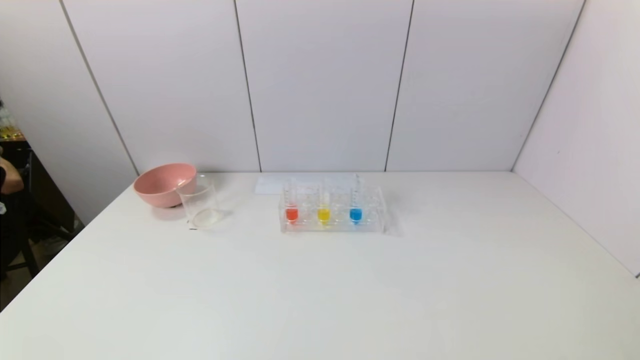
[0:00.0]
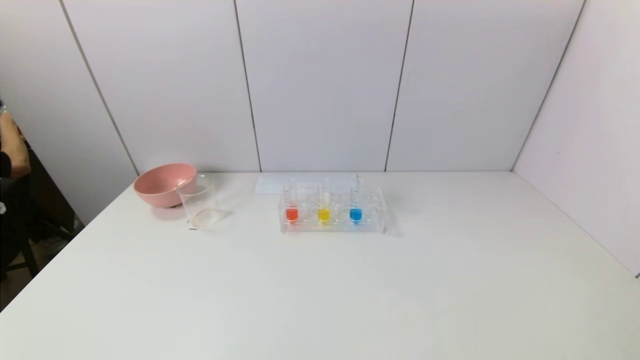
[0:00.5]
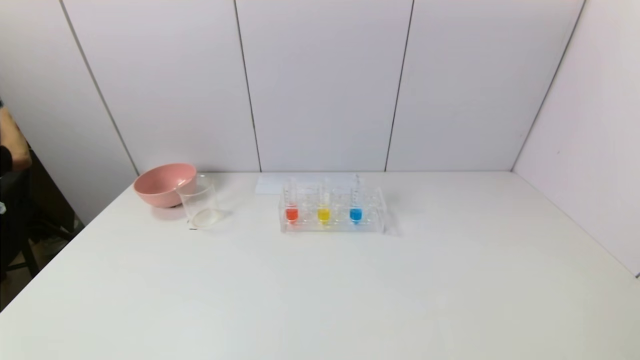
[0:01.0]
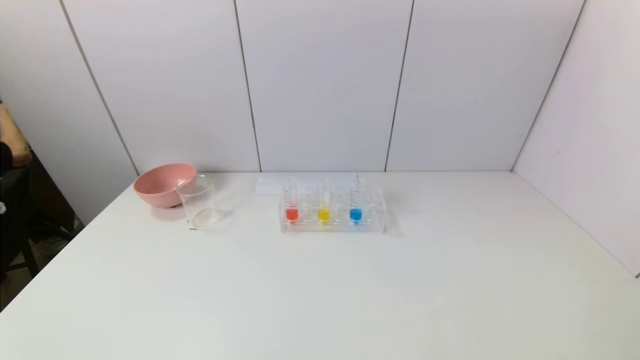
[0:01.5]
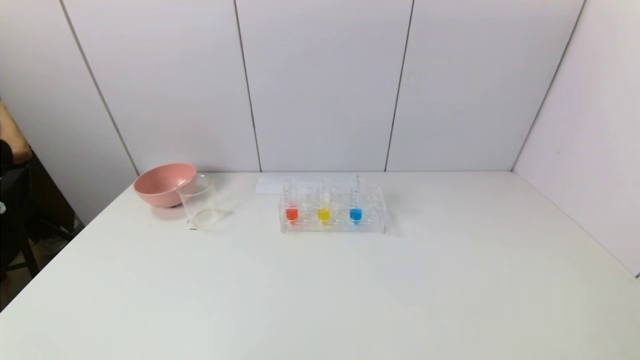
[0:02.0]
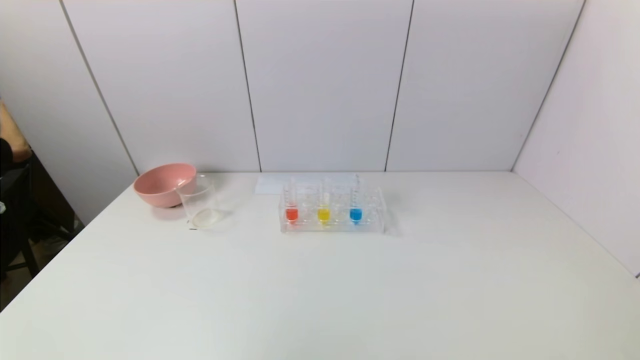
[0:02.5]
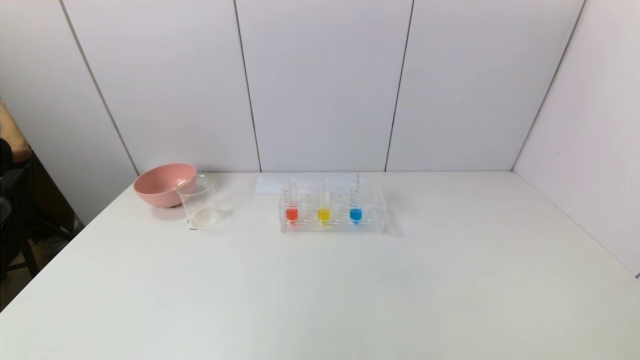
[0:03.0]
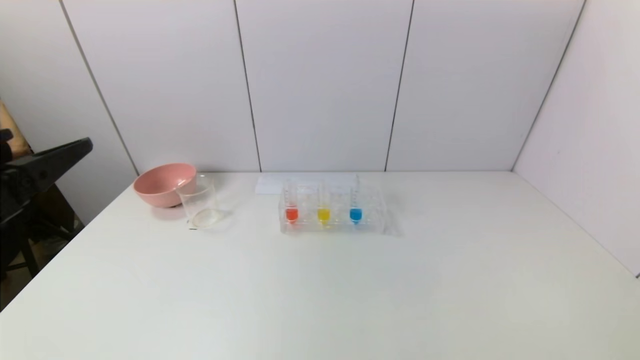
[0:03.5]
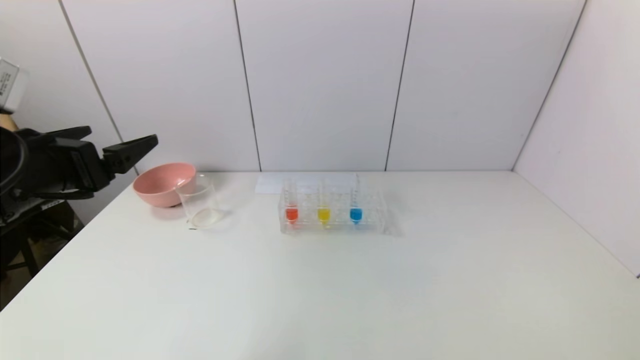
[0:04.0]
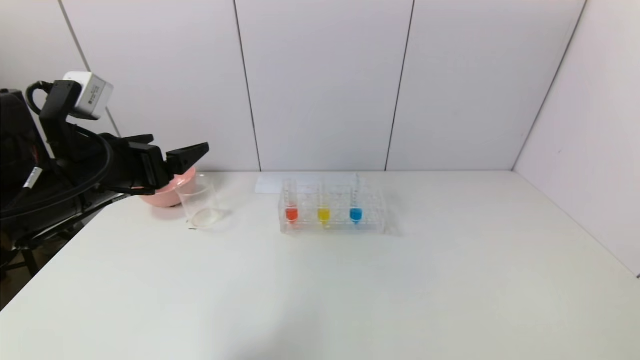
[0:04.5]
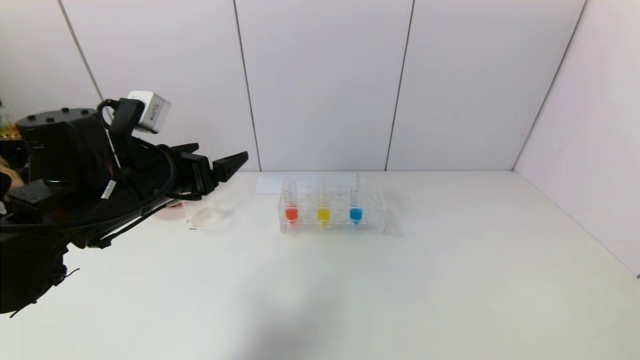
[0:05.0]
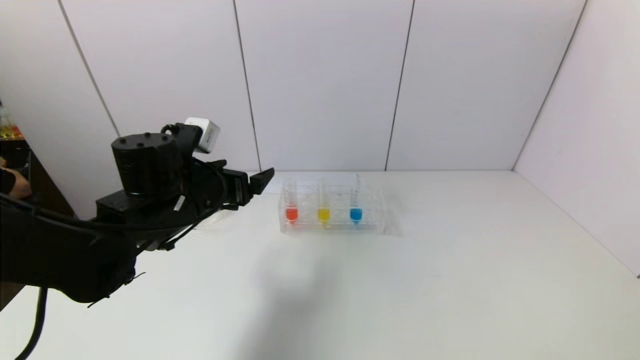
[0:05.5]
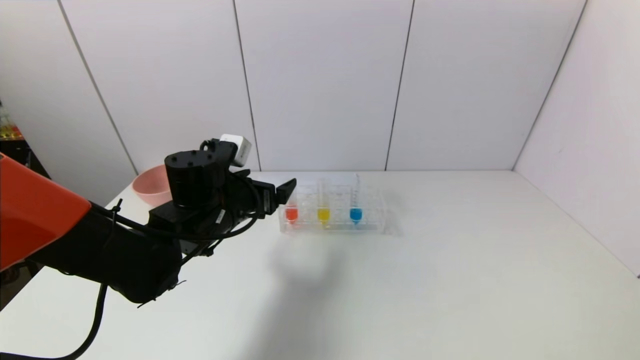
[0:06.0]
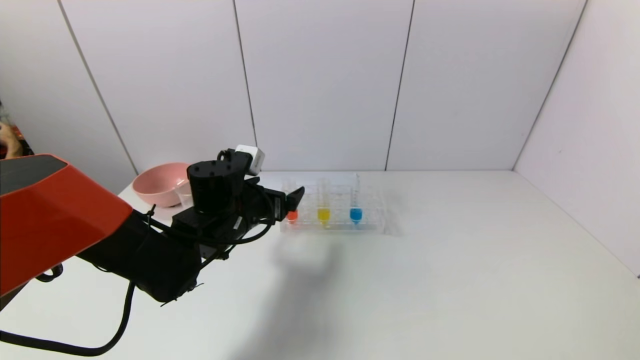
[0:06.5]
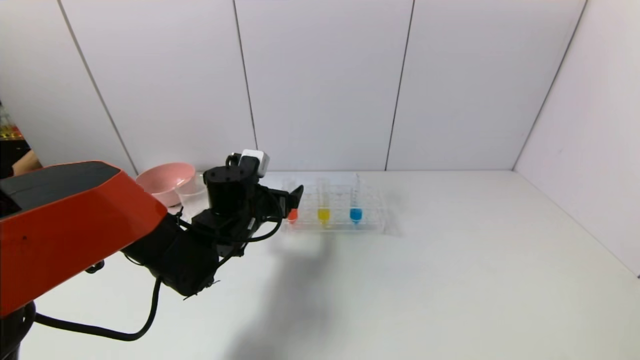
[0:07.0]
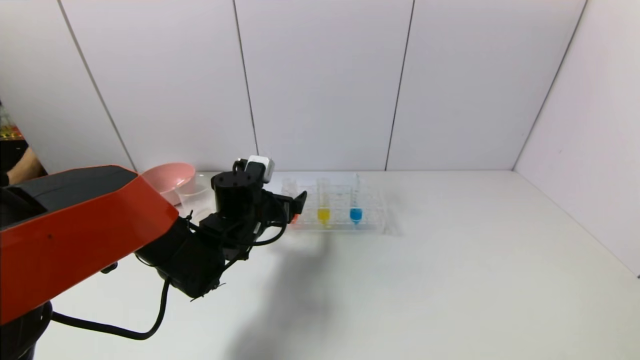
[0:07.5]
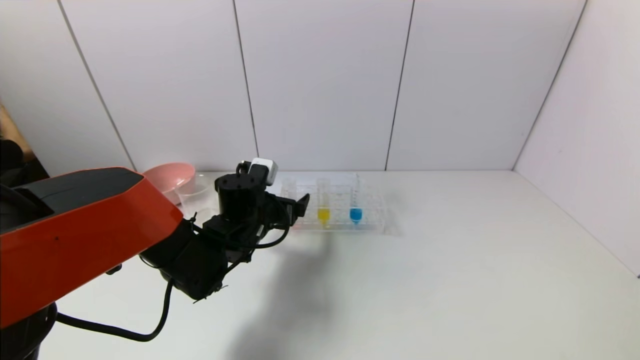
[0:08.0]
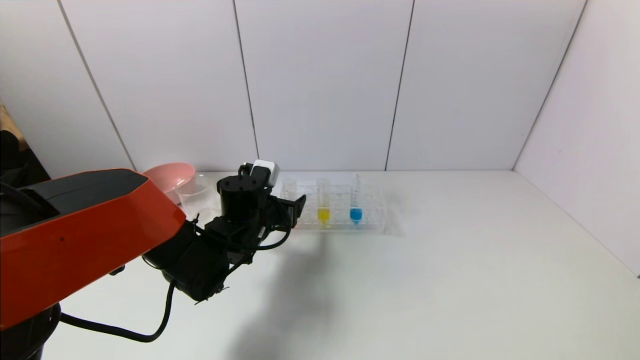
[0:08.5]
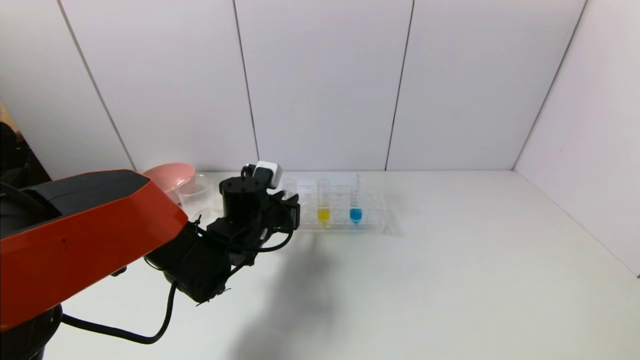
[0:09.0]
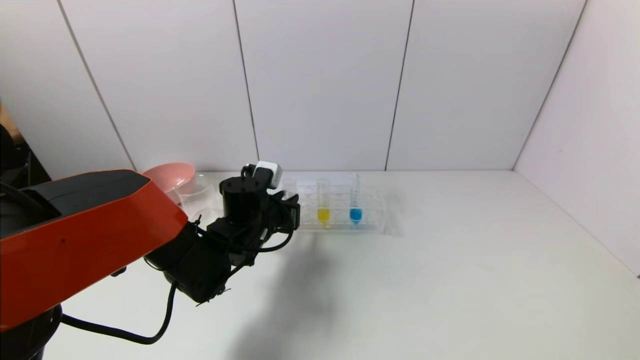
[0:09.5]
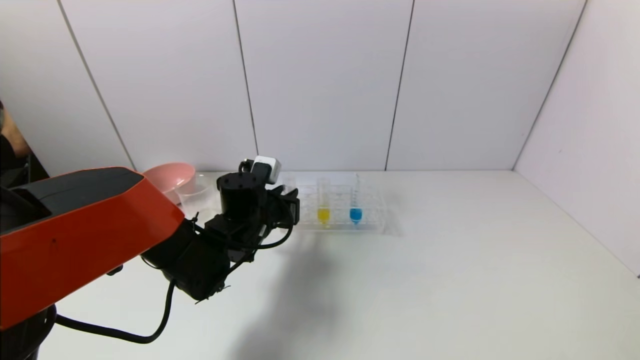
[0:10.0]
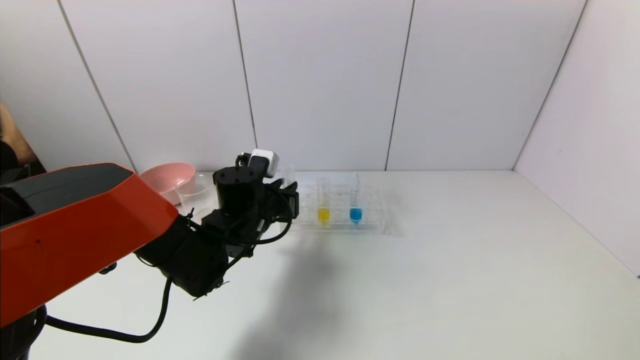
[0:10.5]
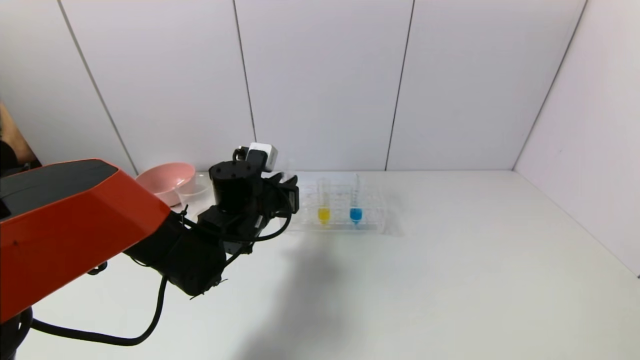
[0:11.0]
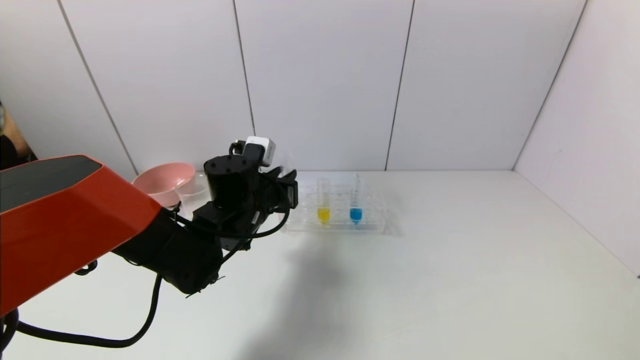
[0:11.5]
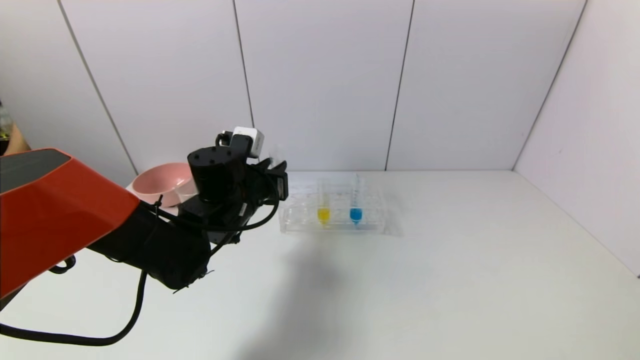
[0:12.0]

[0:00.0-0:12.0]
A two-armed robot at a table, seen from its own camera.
Task of the whole recording: pick up the test tube with yellow pigment and the test tube with red pigment by grippers and pour them into the beaker.
Step, 0.0 to 9.0 s: Grasp the red reagent with the left gripper.
2.0 to 4.0 s: The left gripper heads forward and upward, covering some 25 cm.
4.0 to 6.0 s: The left gripper goes approximately 20 cm to the right, forward and downward.
6.0 to 8.0 s: The left gripper heads downward, covering roughly 5 cm.
8.0 to 10.0 s: The left gripper closes its fingers.
10.0 to 12.0 s: The left gripper moves upward, roughly 5 cm.

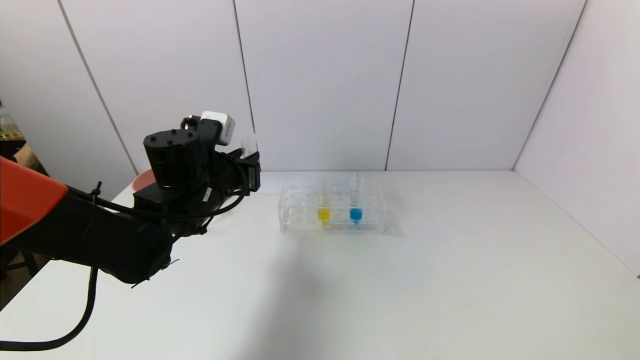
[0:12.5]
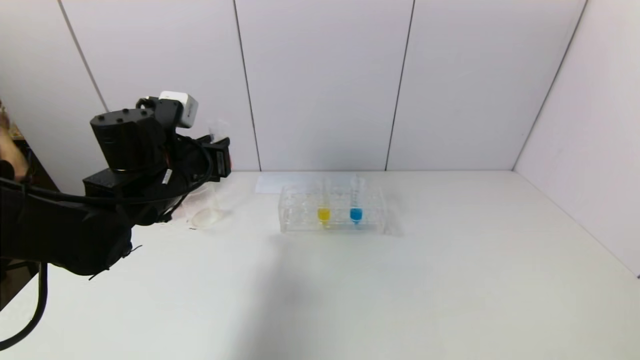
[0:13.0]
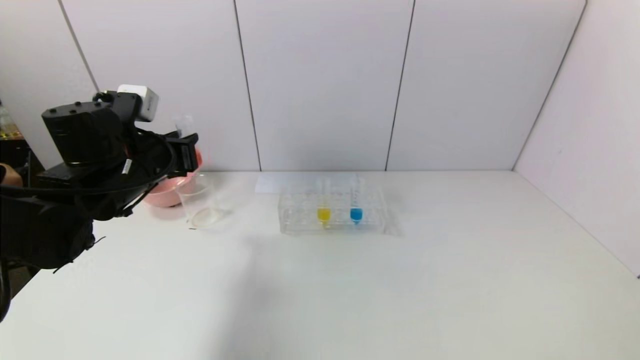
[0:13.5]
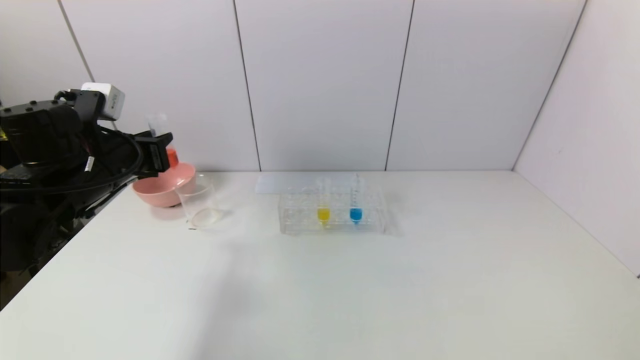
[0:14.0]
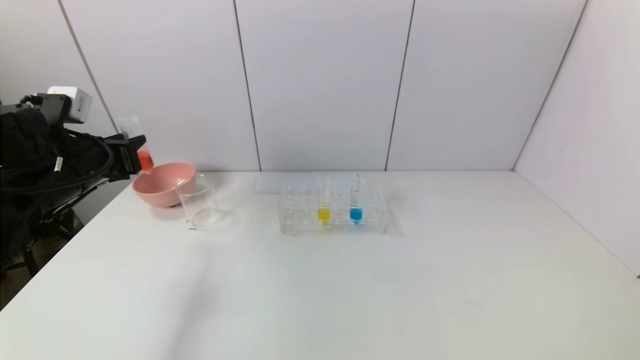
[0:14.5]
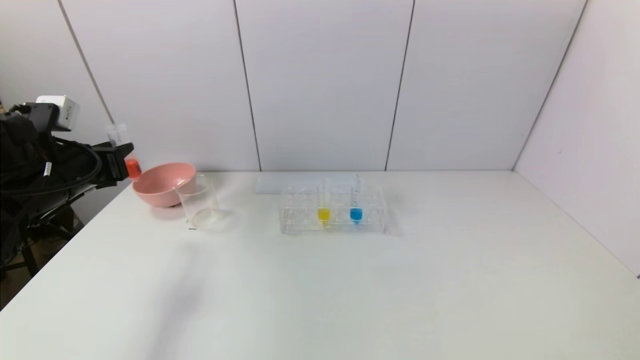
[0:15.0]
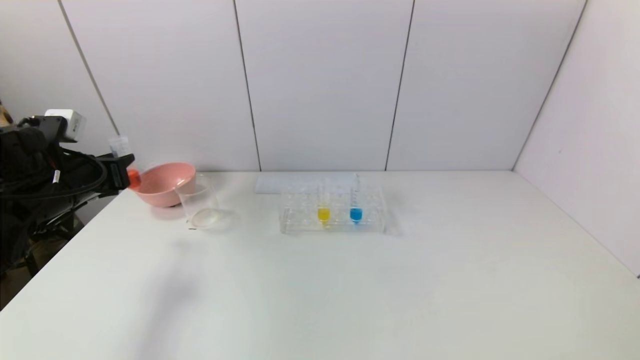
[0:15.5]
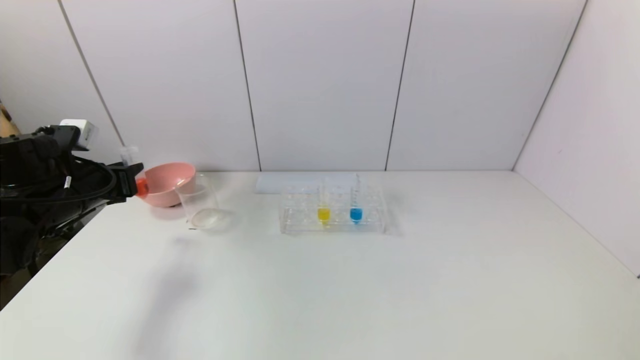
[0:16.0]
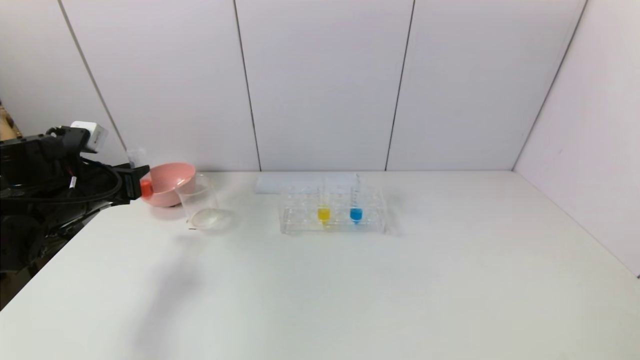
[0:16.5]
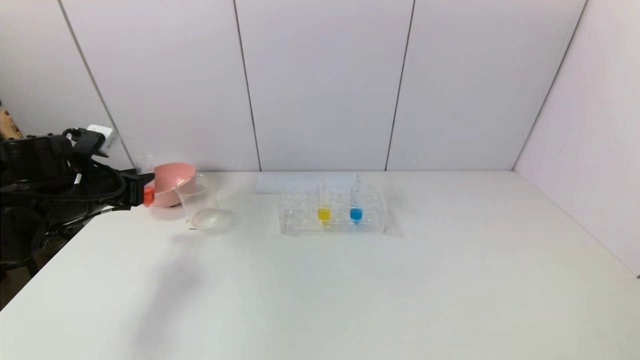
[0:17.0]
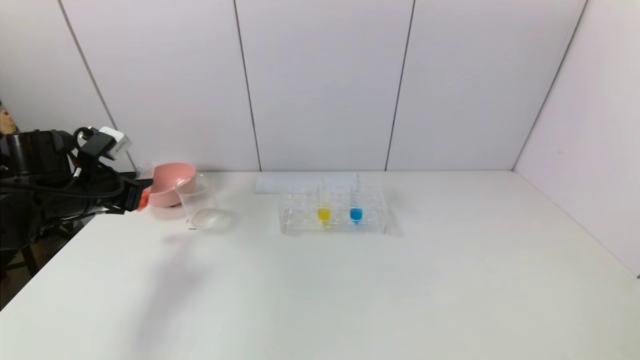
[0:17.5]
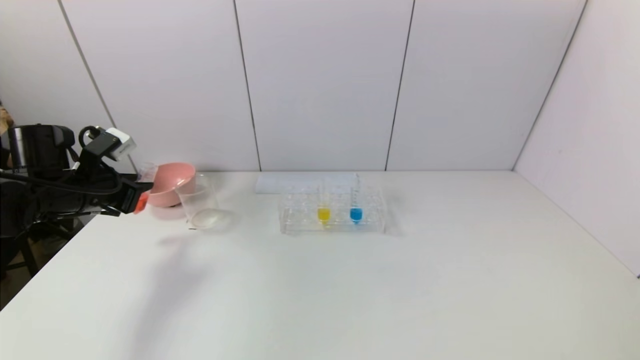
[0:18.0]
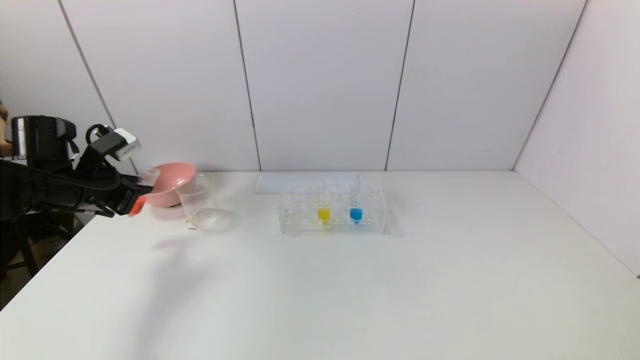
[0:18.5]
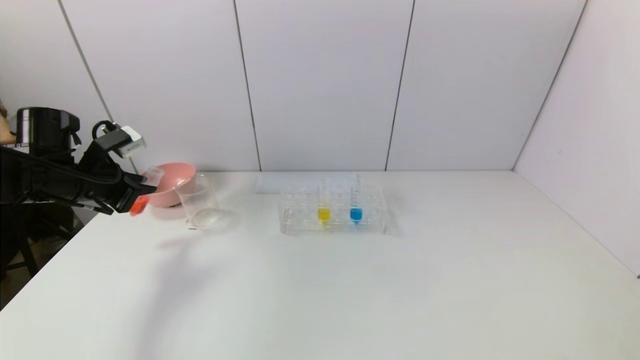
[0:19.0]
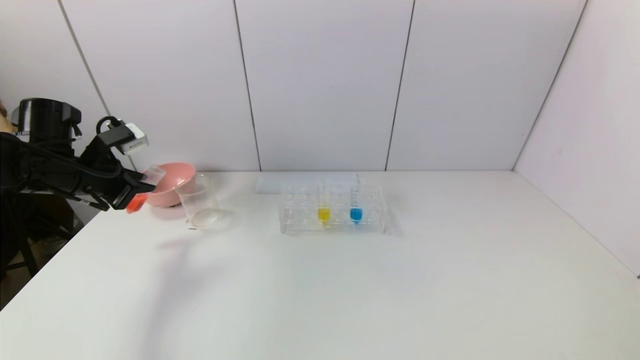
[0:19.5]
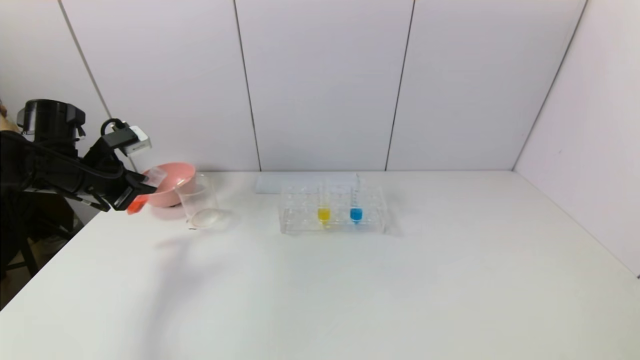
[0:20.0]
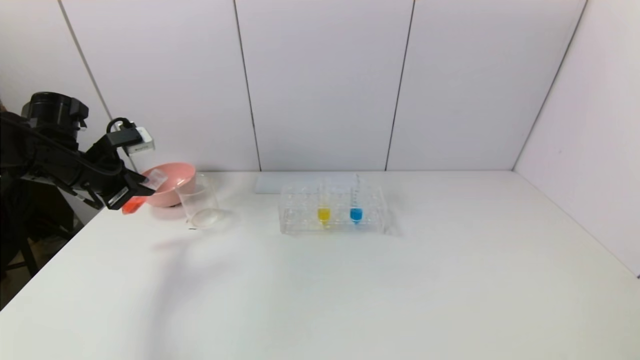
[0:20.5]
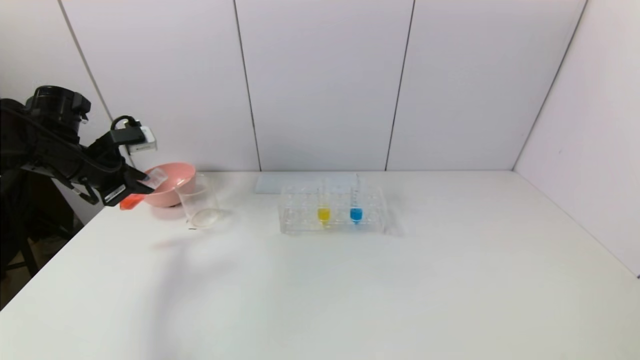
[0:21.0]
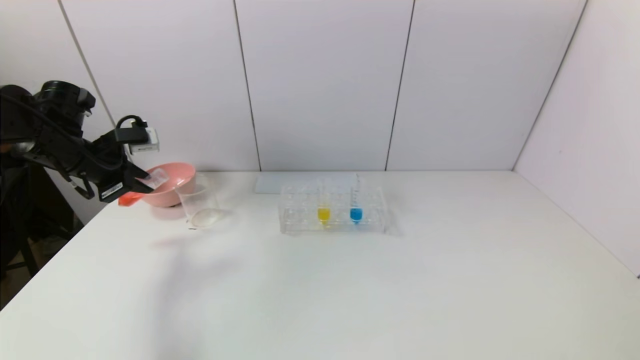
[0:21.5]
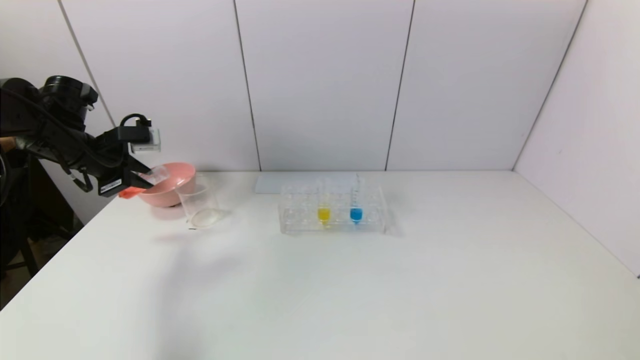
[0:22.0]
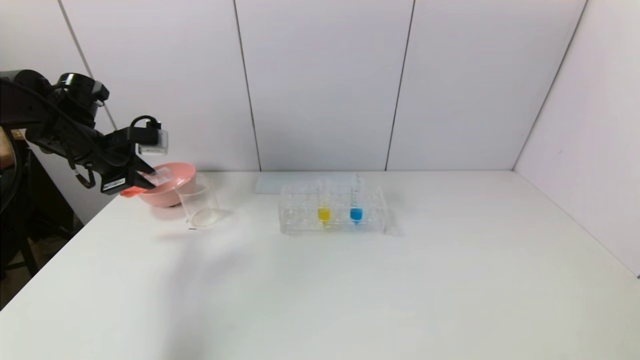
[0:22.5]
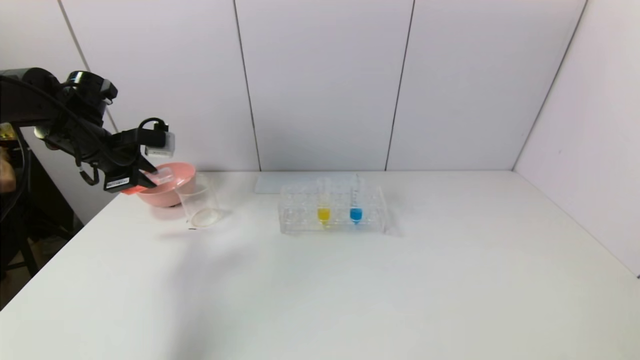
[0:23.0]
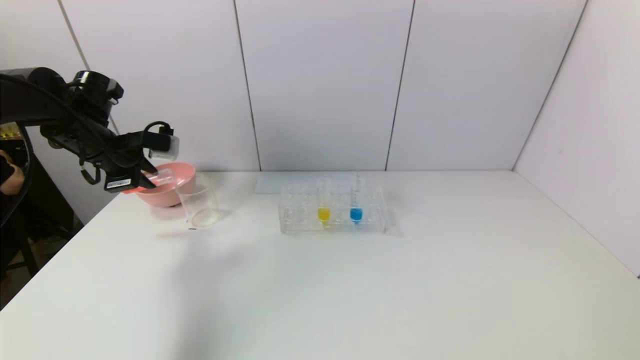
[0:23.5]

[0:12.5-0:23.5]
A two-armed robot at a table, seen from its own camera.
Task of the whole recording: pick up the test tube with yellow pigment and the test tube with red pigment by grippers and pour them into the beaker.
12.5 to 14.5 s: The left gripper moves to the left, some 15 cm.
14.5 to 16.0 s: The left gripper changes place by roughly 5 cm.
18.0 to 20.0 s: There are only small adjustments of the grippers.
21.5 to 23.5 s: The grippers move only a little.
